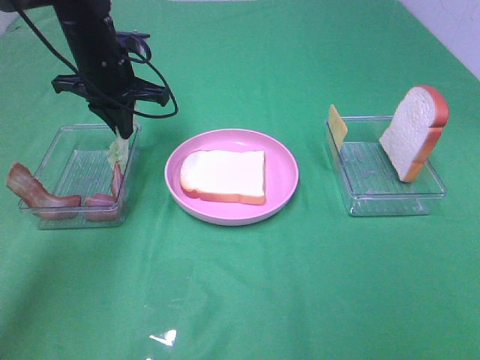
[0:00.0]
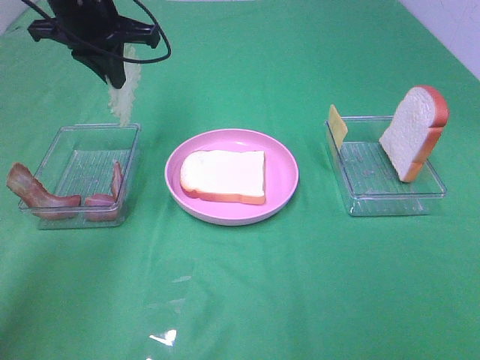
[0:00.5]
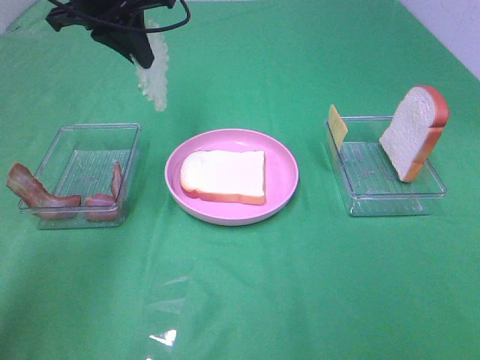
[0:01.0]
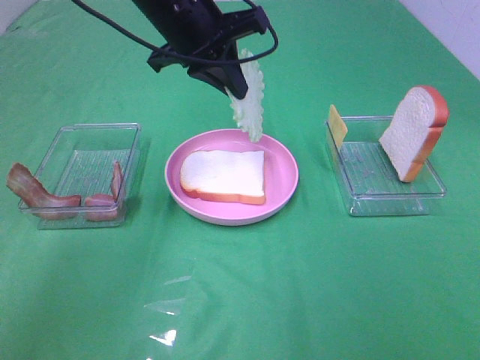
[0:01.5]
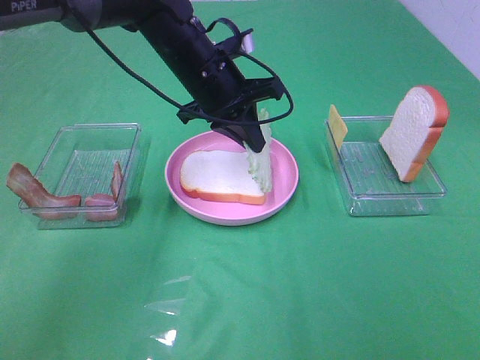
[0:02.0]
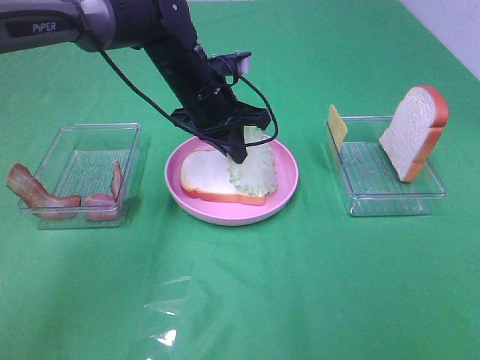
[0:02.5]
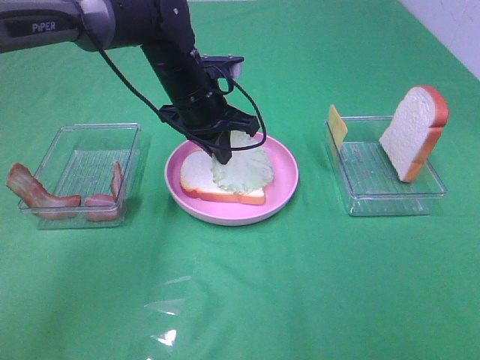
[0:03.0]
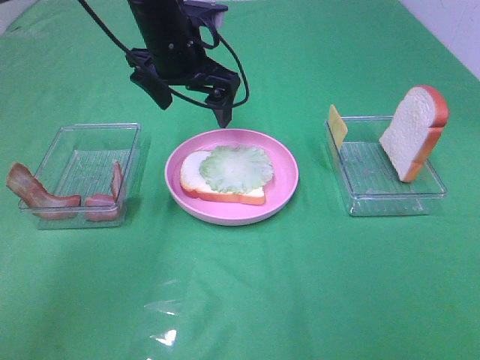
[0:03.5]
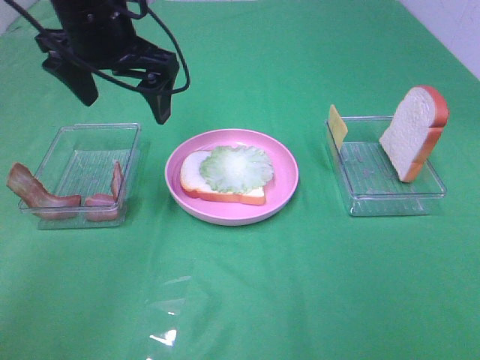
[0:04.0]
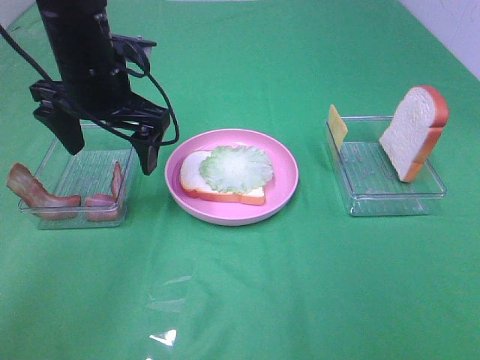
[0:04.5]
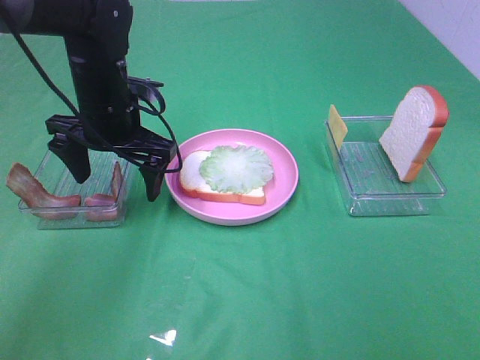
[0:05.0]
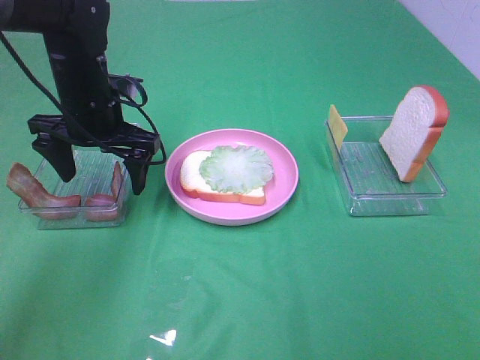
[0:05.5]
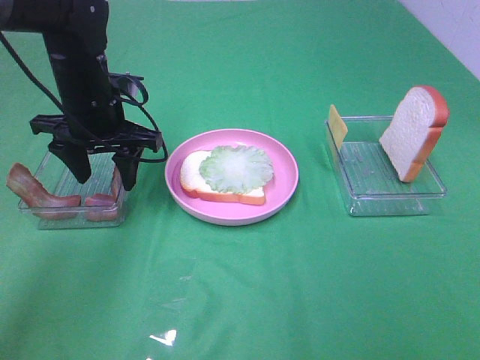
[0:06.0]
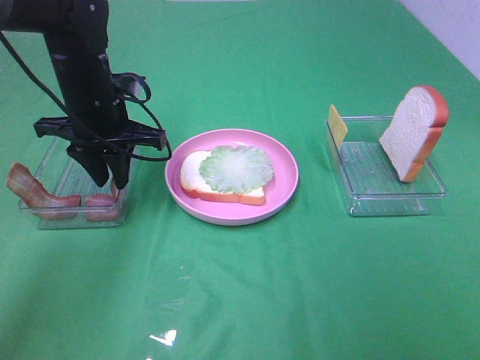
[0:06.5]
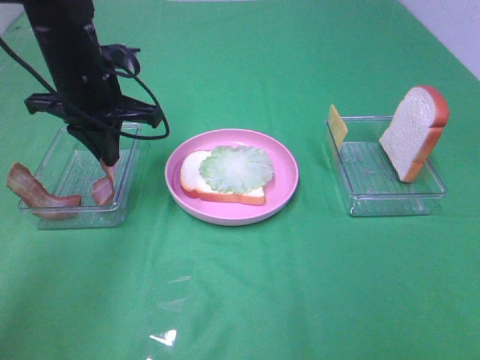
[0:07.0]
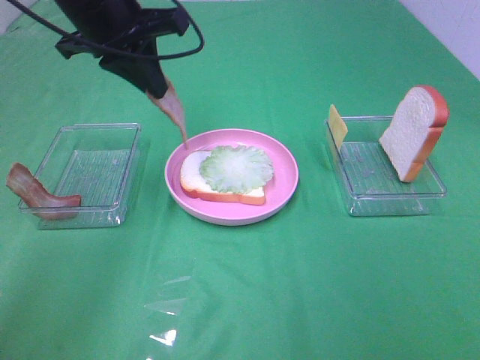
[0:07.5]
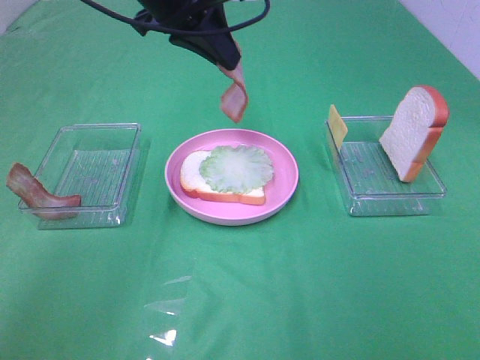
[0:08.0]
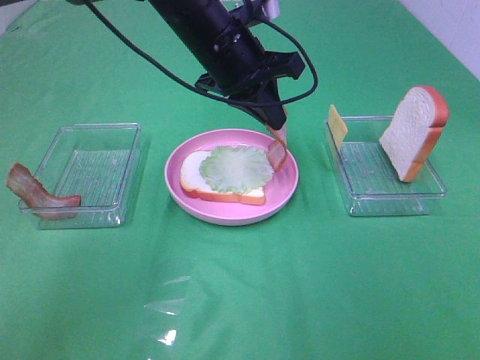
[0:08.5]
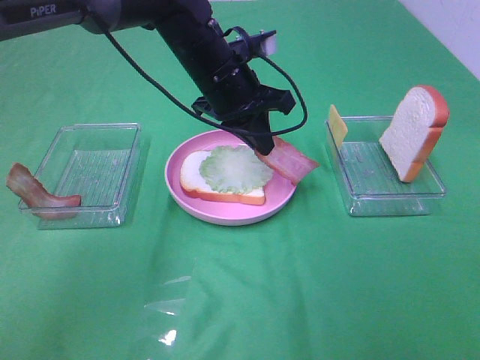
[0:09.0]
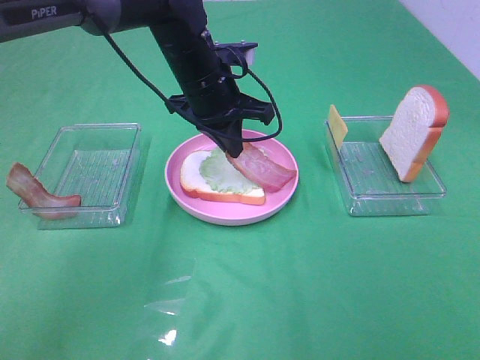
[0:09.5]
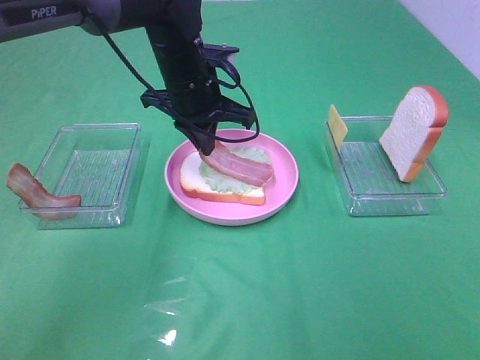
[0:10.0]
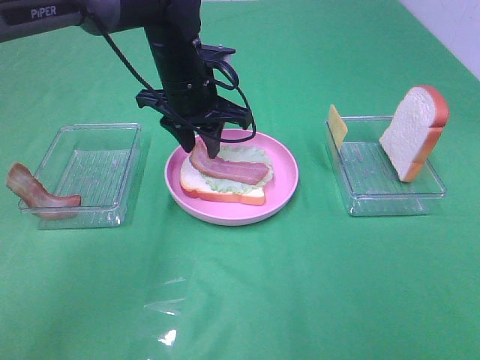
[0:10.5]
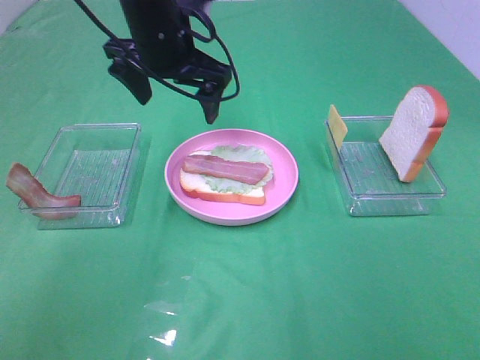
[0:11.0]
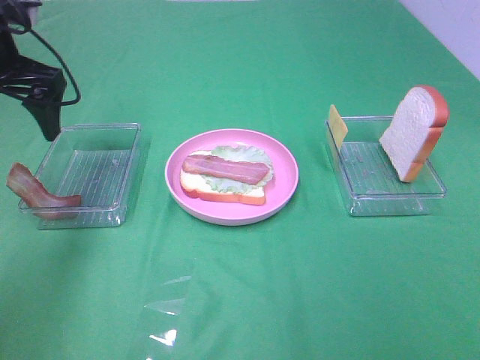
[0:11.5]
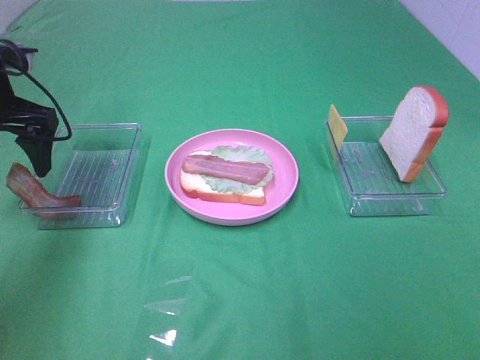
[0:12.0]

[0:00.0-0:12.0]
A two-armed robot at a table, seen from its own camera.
Task of the whole recording: Make sandwiches.
Step, 0.0 to 3.0 s: Left hand:place the lettuce slice on the bread slice.
Step, 3.5 to 6.5 s: Left hand:grab the bacon.
Step, 7.0 to 10.5 s: Left hand:place bacon on lettuce slice.
0.0 to 2.0 s: The left gripper shifts some 15 cm to the right.
2.0 to 4.0 s: The left gripper shifts about 15 cm to the left and upward, and opens its fingers.
4.0 to 6.0 s: The left gripper shifts some 10 cm downward, and closes up.
6.0 to 8.0 s: The left gripper travels upward and to the right by some 15 cm, and closes.
8.0 to 10.0 s: The left gripper goes approximately 15 cm downward.
10.0 to 12.0 s: The left gripper goes some 20 cm to the left, and opens.

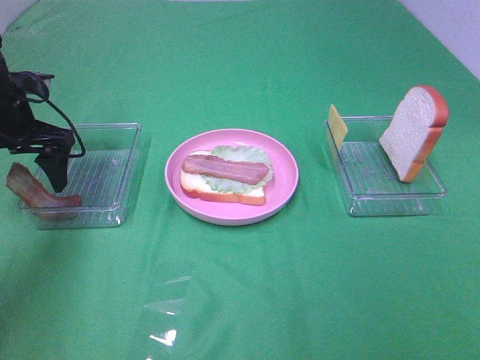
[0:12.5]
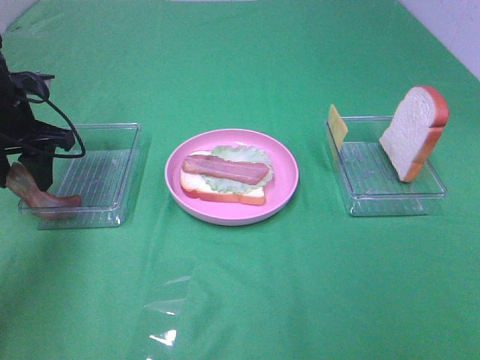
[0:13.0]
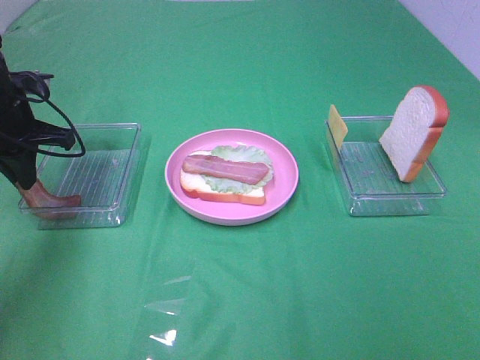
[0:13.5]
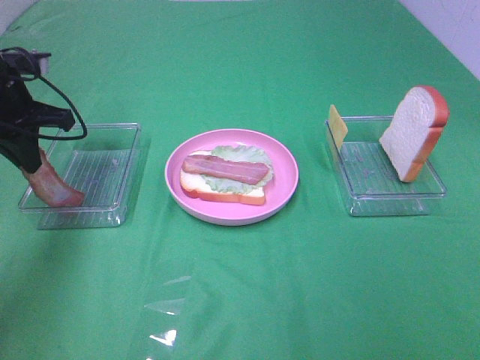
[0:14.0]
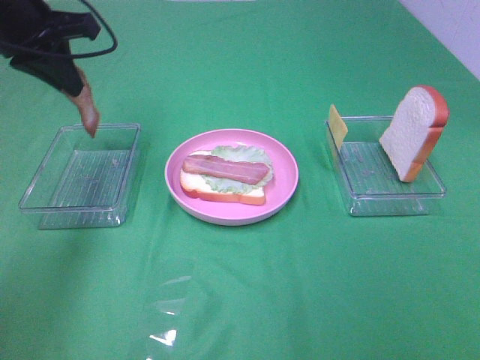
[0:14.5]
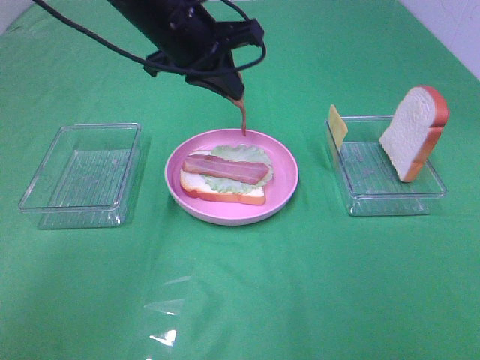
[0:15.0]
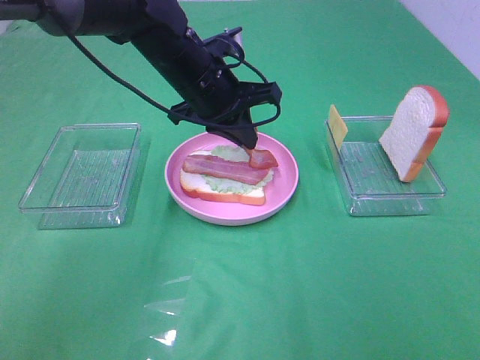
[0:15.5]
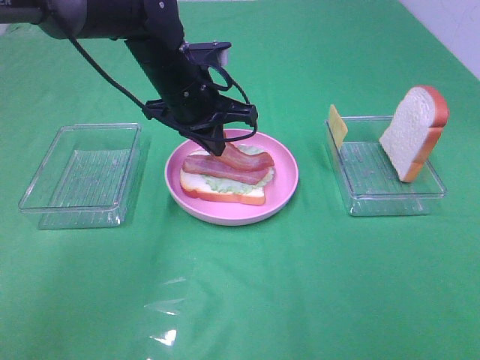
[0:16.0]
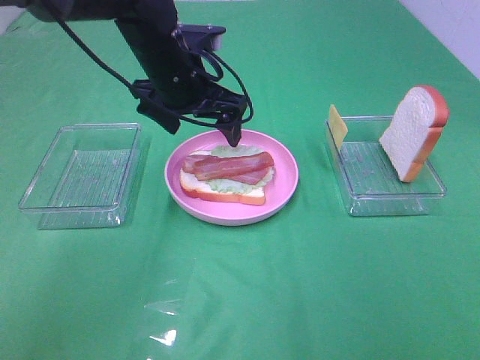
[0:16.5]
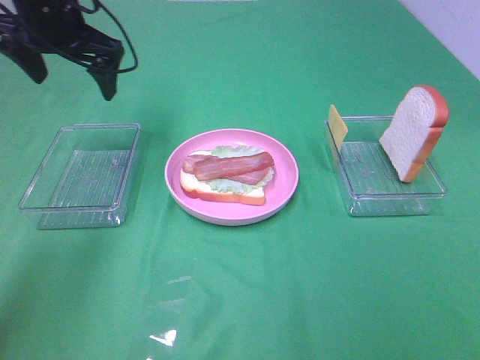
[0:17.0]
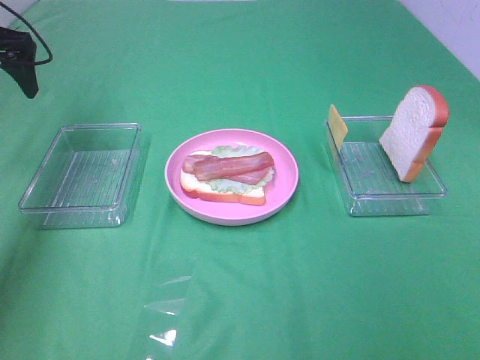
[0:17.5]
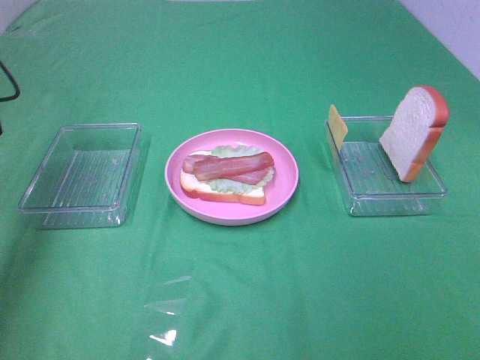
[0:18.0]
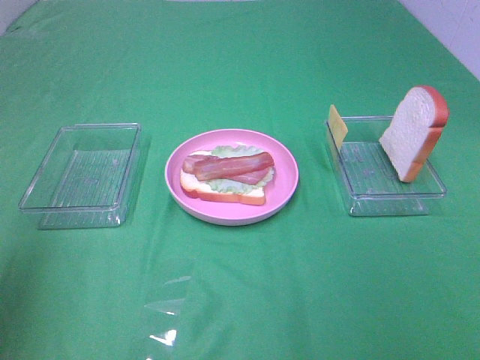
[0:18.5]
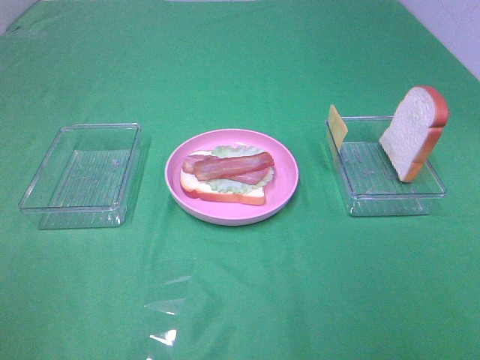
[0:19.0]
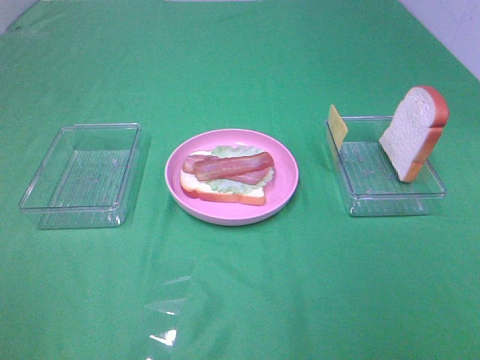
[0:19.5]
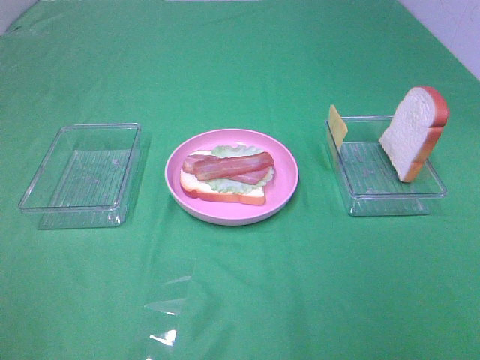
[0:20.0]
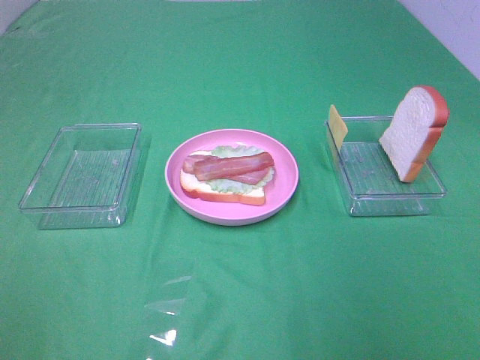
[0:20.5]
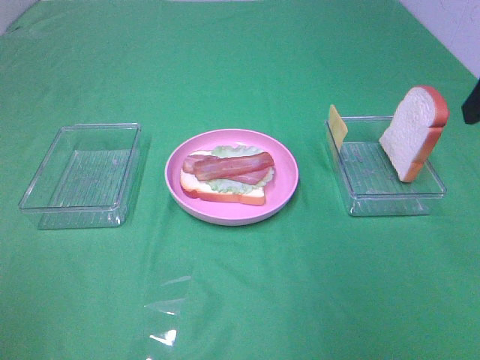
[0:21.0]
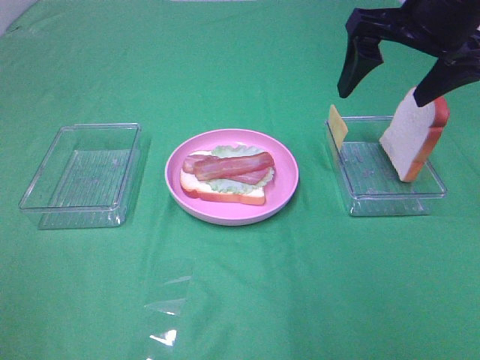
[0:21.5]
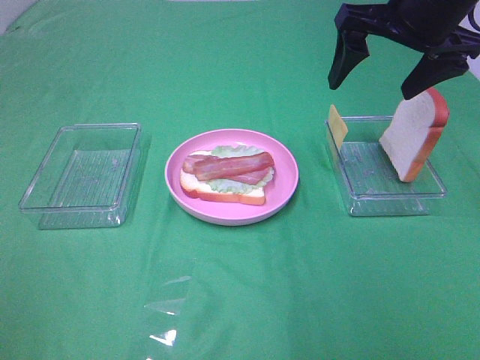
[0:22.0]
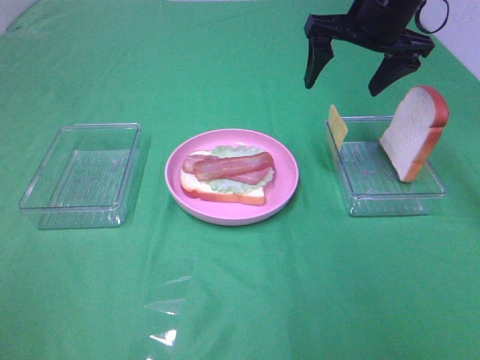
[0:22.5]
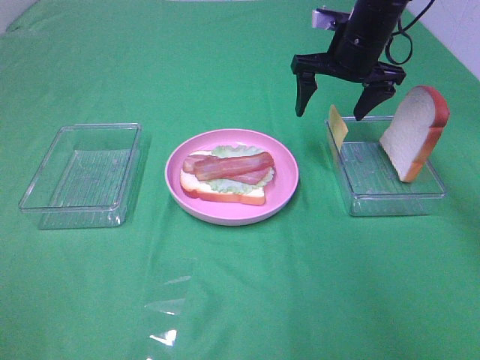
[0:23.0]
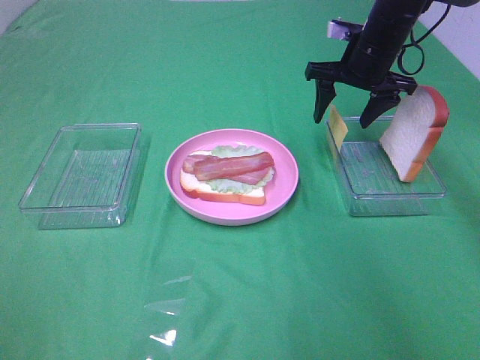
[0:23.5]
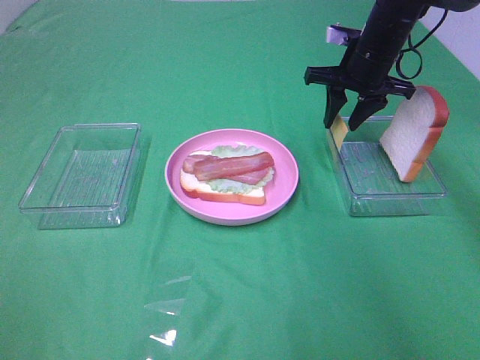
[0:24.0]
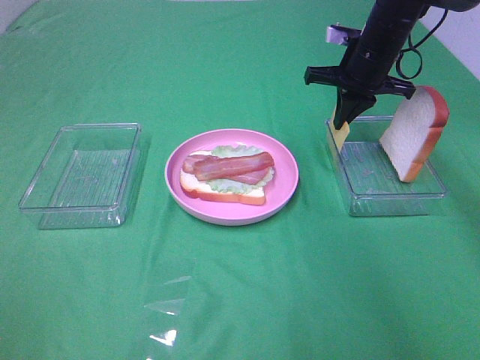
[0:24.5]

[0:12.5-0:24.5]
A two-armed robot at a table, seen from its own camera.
Task of the whole recording: Make sandwiches.
Step, 14.0 to 16.0 s: Left hand:place bacon on bacon.
Step, 16.5 to 24.0 s: Right hand:grab the cheese slice.
12.5 to 14.5 s: The left gripper heads upward and to the right, covering roughly 15 cm, and closes its fingers.
14.5 to 16.5 s: The left gripper is displaced to the right and downward by roughly 15 cm, and opens its fingers.
16.5 to 18.5 s: The left gripper is displaced backward, to the left and upward by some 40 cm.
18.5 to 20.5 s: The left gripper shifts approximately 15 cm backward.
20.5 to 22.5 s: The right gripper is displaced forward by roughly 35 cm.
22.5 to 24.5 s: The right gripper moves downward, some 10 cm, and closes its fingers.

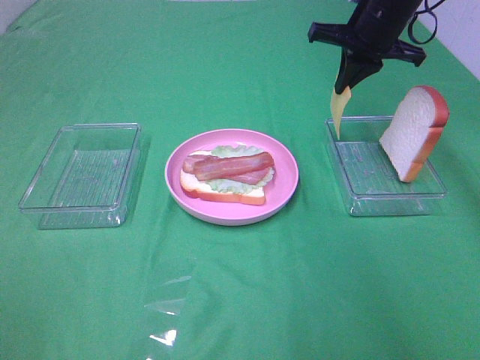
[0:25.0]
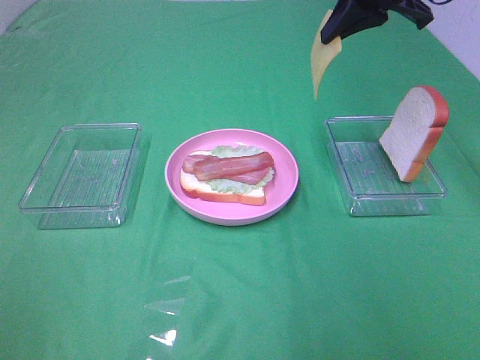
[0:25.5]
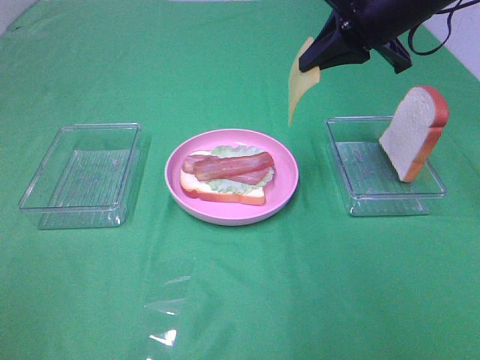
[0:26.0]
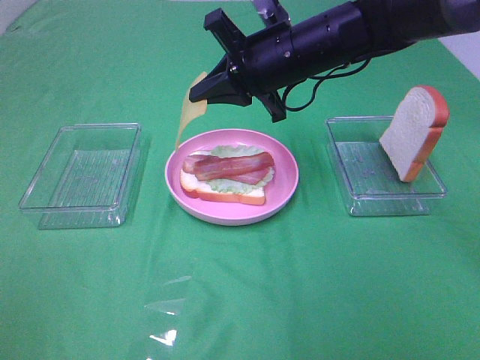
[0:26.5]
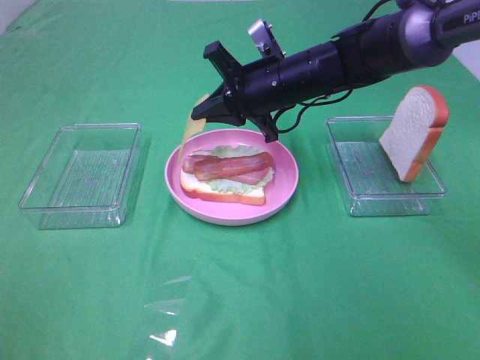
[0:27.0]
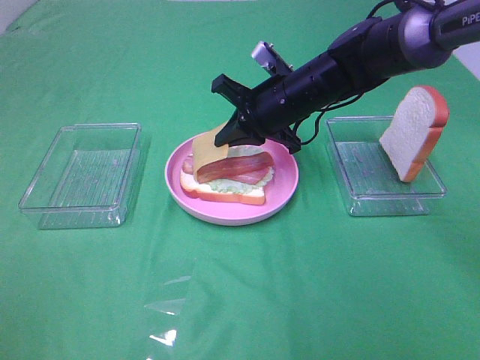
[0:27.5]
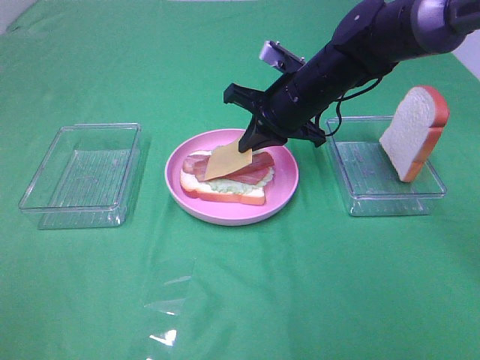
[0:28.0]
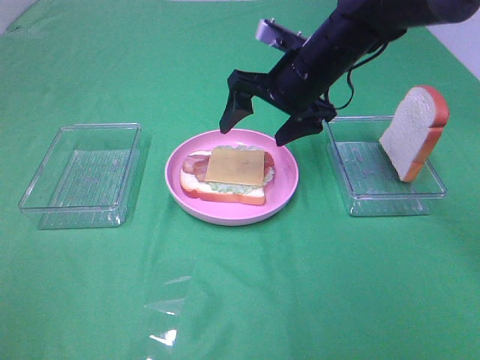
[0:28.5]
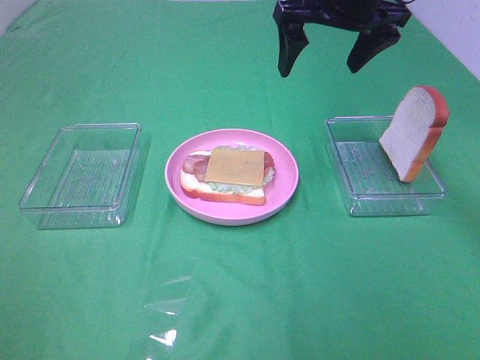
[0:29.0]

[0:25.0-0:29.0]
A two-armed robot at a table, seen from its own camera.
Task of the whole recording: Make sandwiches.
Step, 25.0 to 28.0 s: Right hand:place the cheese slice on top of the bacon.
25.0 to 27.0 s: The right gripper heads to the left, downward and backward, covering approximately 15 cm.
27.0 to 29.0 s: The right gripper is displaced upward and to the right by roughly 15 cm, and opens.
